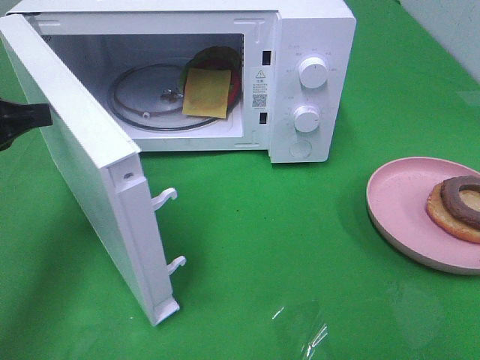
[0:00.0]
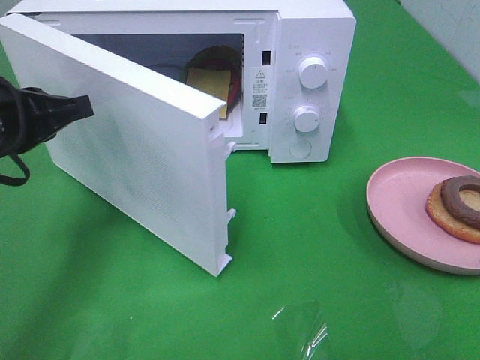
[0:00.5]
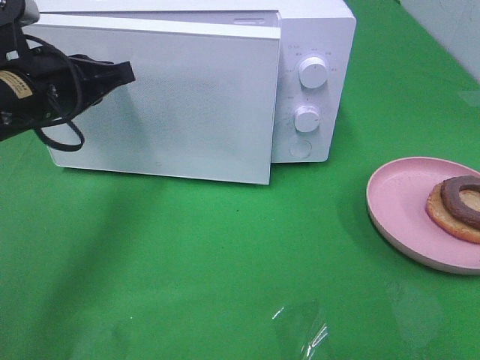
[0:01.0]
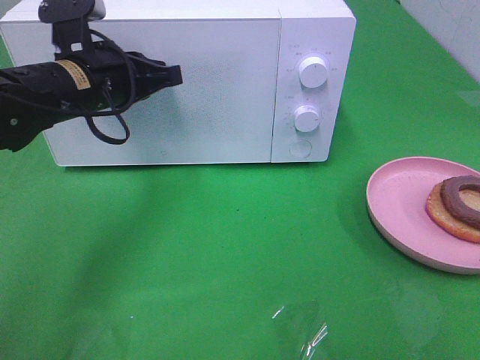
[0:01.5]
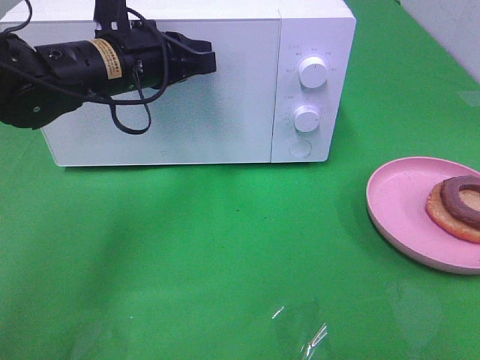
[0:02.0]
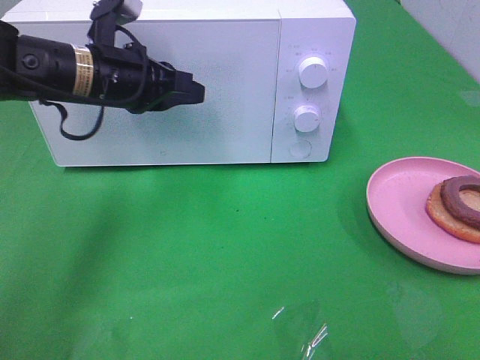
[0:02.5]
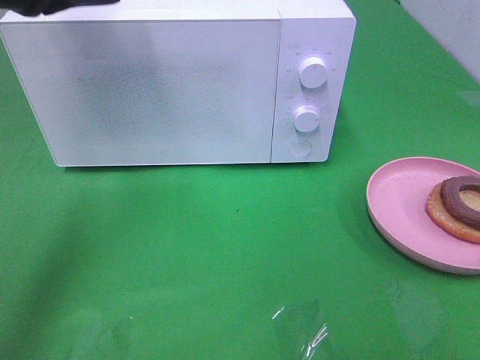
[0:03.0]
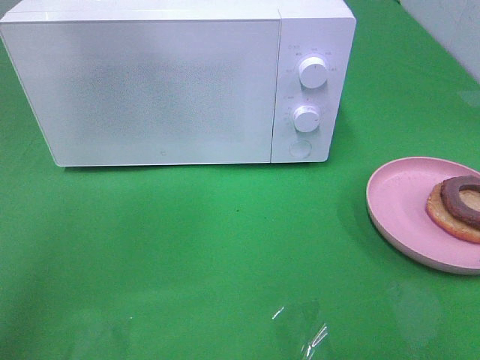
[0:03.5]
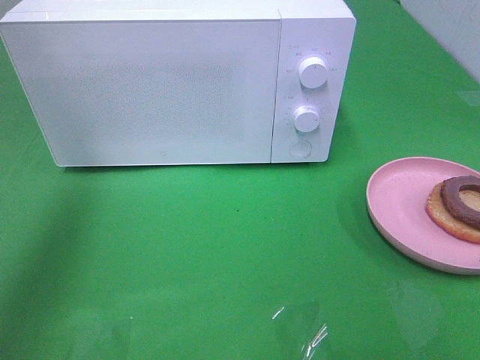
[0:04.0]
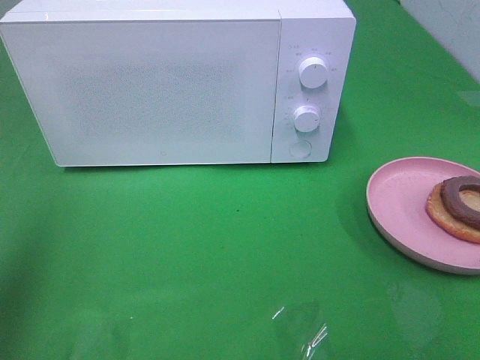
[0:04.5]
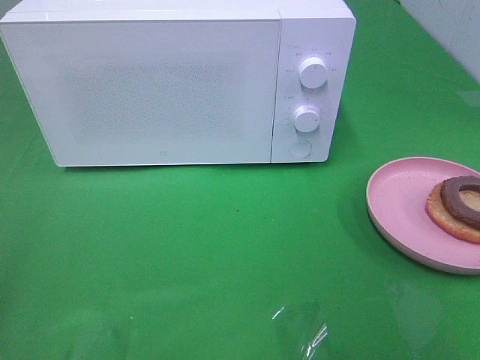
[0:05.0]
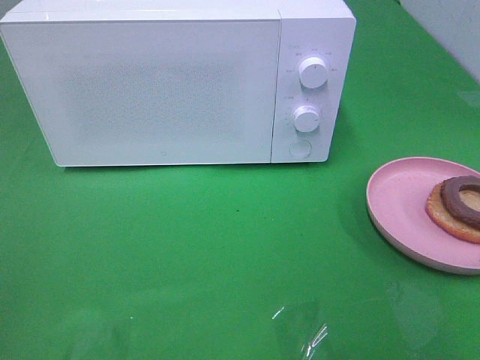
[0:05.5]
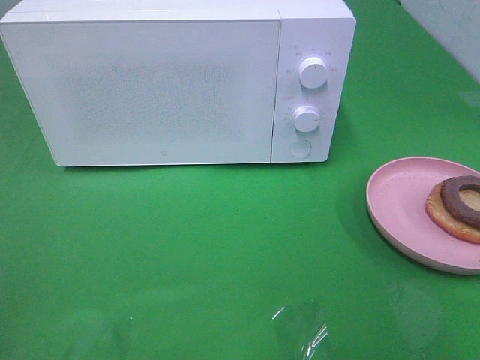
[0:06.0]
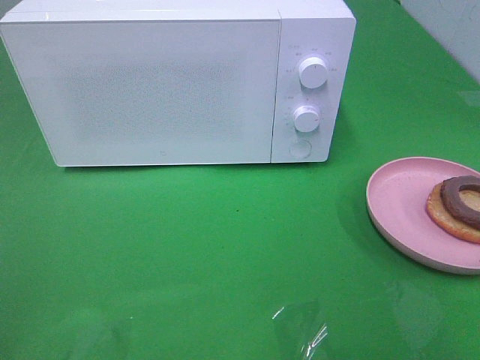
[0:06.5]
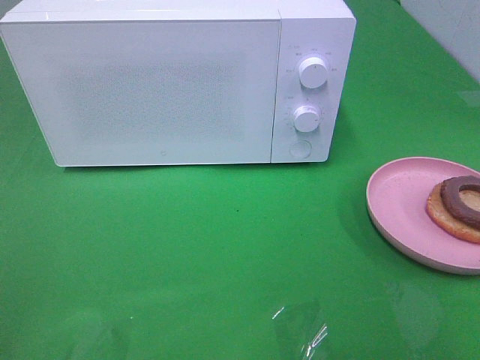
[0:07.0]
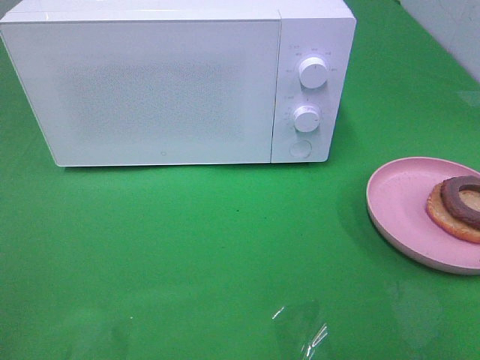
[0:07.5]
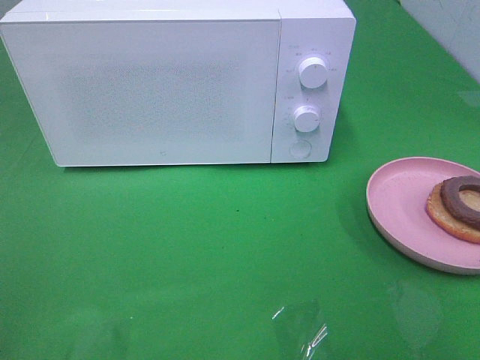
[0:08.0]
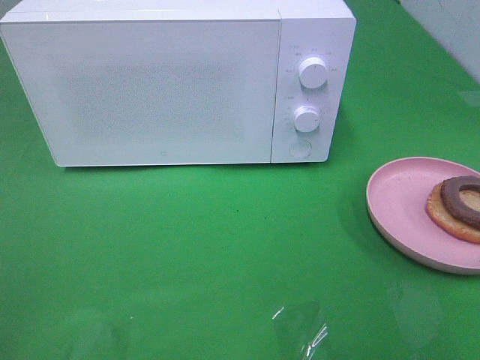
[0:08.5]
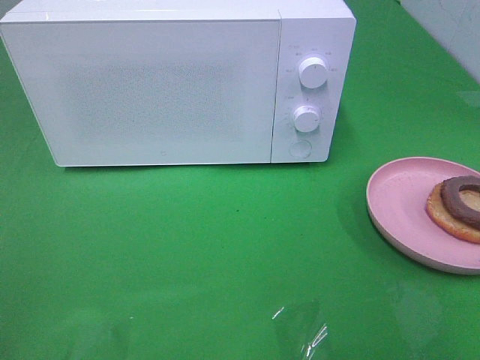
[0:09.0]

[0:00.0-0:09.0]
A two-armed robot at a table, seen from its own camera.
Task of the whole recording: Heat the burger.
Step, 0:00.0 to 0:02.5: Left hand: close the microwave door.
0:00.0 to 0:02.0: The left gripper moves to the right and forward, approximately 20 cm, and opens its fingers.
0:02.0 to 0:04.5: The left gripper moves backward, to the left and upward, roughly 35 cm.
0:04.5 to 0:07.0: The left gripper goes about 15 cm backward and downward, and closes up.
0:07.0 to 0:09.0: Neither gripper changes place.

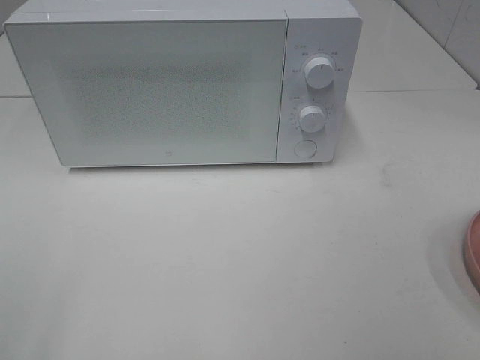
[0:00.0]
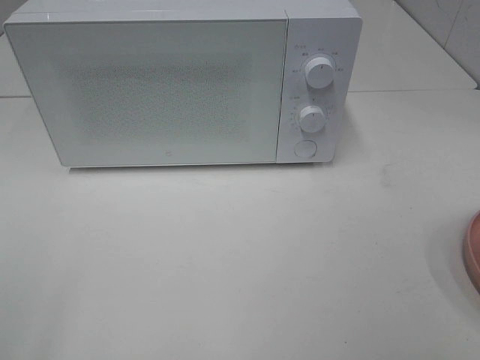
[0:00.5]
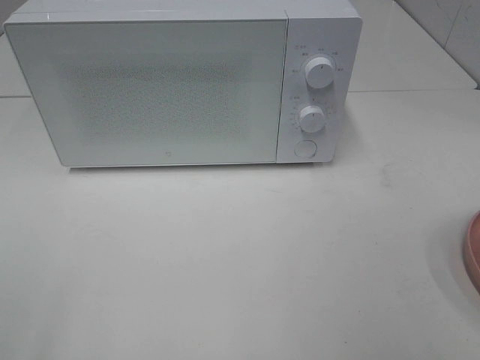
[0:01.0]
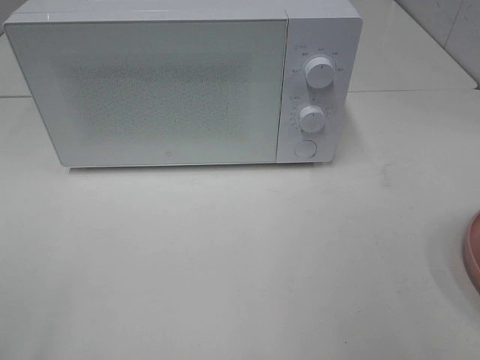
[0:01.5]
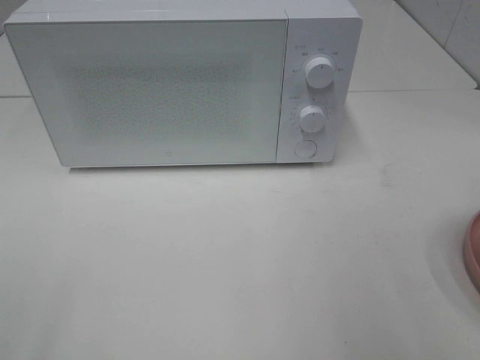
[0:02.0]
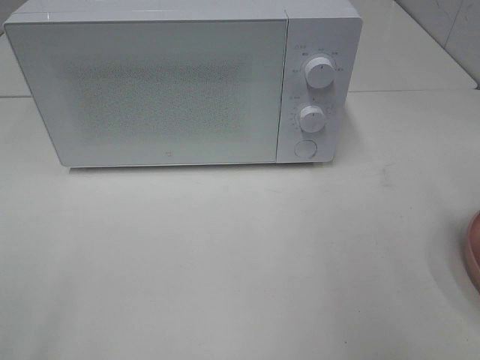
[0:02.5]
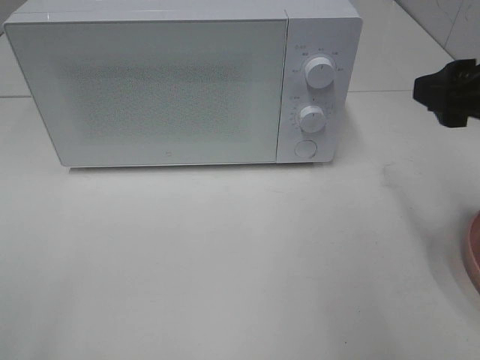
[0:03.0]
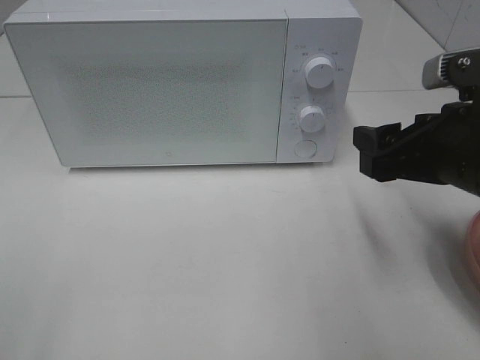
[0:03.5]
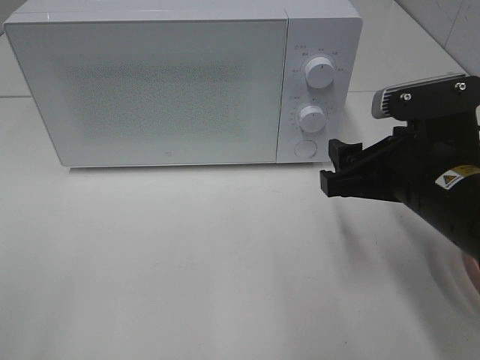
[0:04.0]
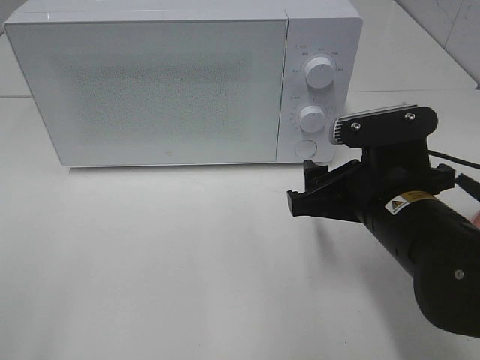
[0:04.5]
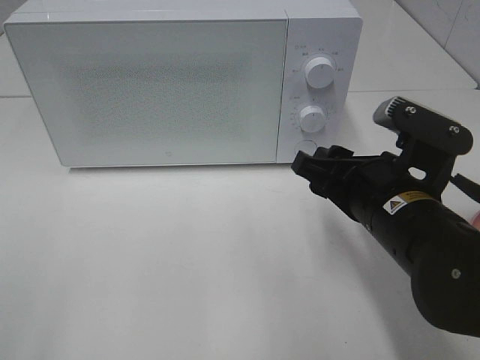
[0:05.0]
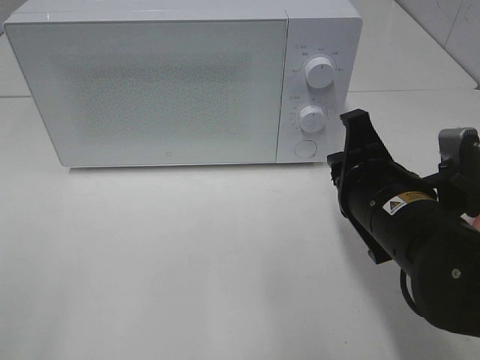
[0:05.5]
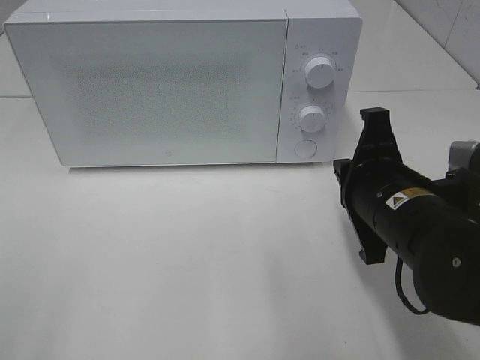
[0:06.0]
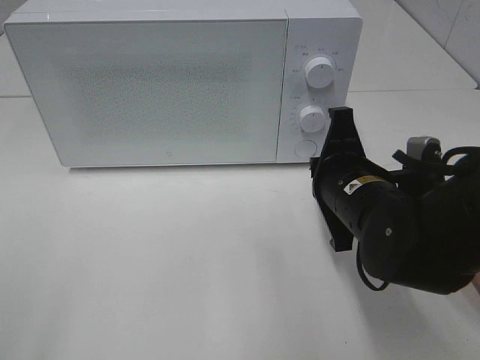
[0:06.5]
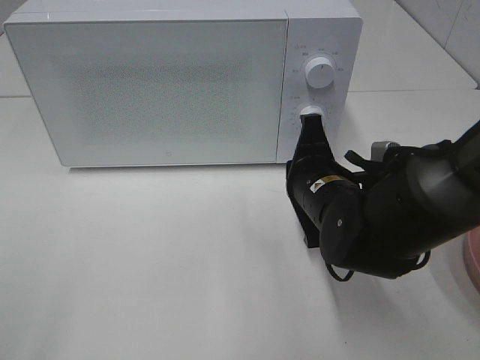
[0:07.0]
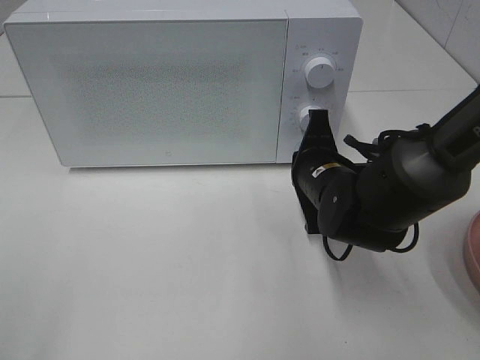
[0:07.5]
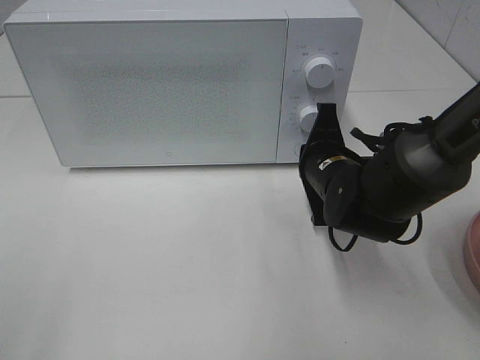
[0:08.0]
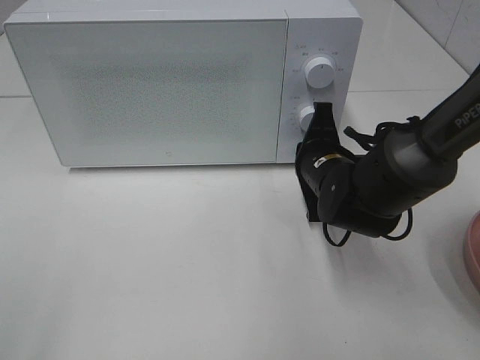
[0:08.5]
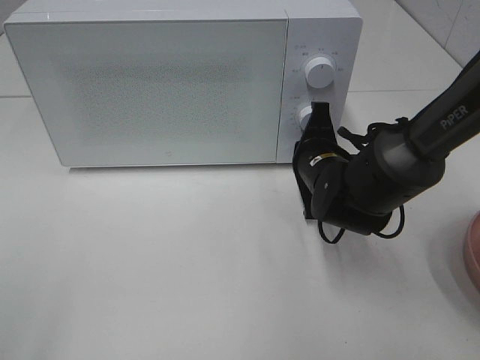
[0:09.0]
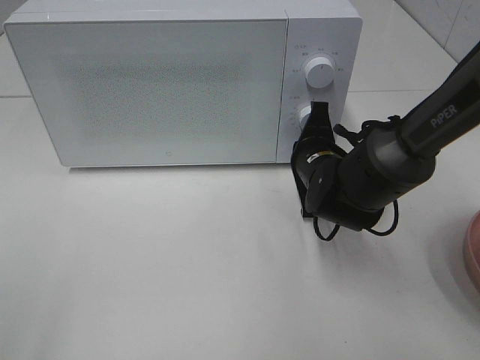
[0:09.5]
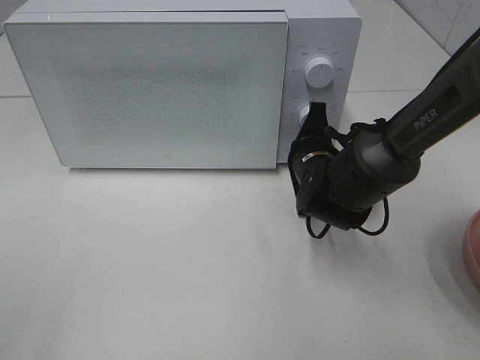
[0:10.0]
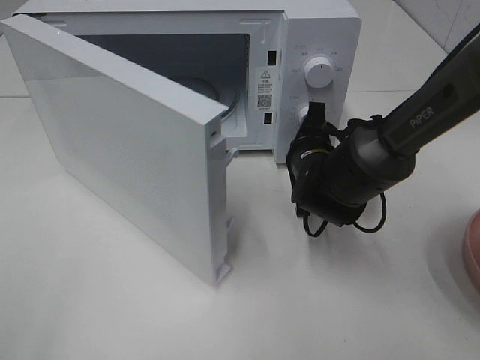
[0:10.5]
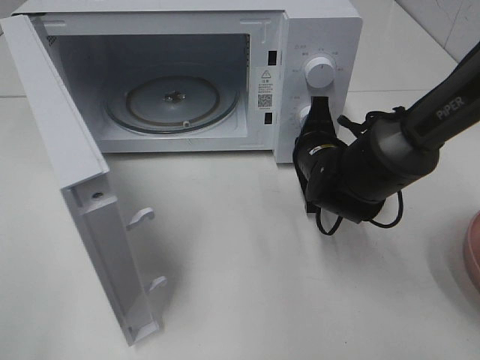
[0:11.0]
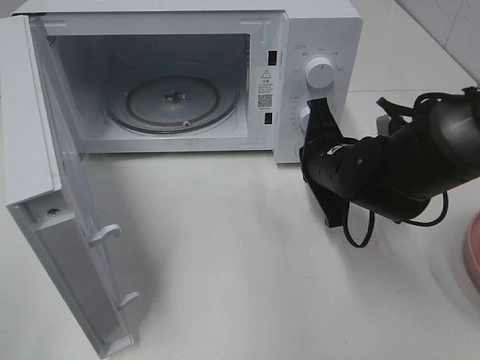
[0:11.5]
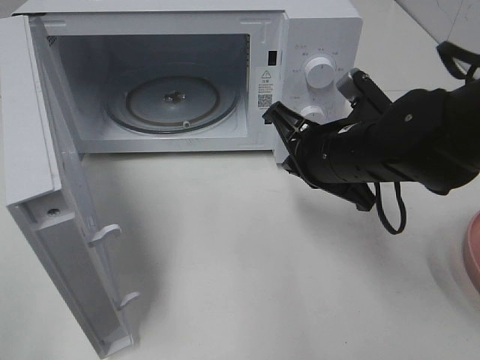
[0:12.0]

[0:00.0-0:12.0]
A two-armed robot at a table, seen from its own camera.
Task of the whole recording: Heat the burger.
Step, 0:00.0 to 0:11.0: Right hand: press the switch.
0:02.0 to 0:04.0: The right gripper travels downward, to the left and forward by approximately 20 cm.
0:04.0 to 0:06.0: The right gripper closes.
0:06.0 to 0:08.0: The right gripper travels forward and downward by about 10 cm.
0:08.0 to 0:10.0: There are only small adjustments of the grippers.
0:10.0 to 0:12.0: The right gripper goes approximately 10 cm upward and backward.

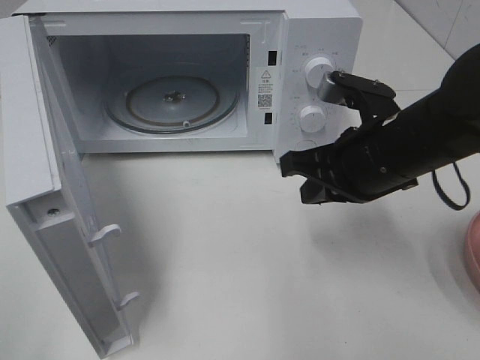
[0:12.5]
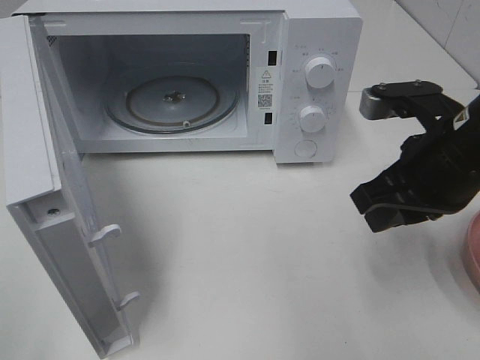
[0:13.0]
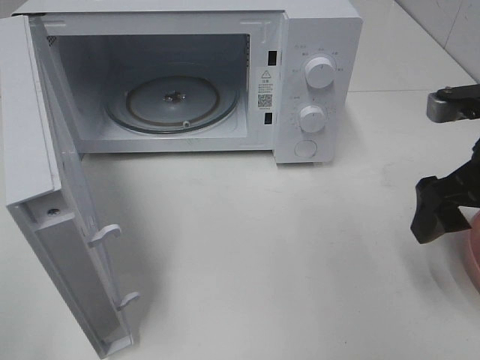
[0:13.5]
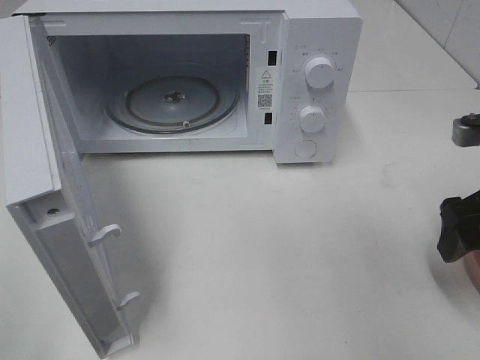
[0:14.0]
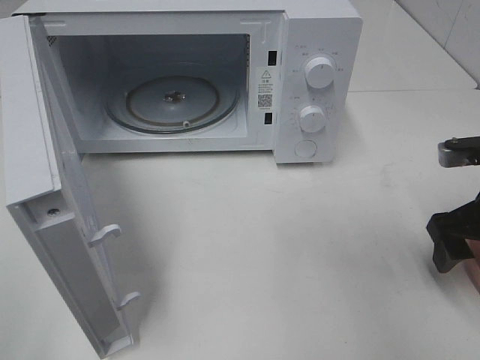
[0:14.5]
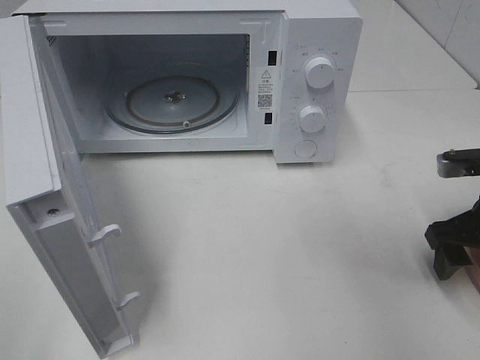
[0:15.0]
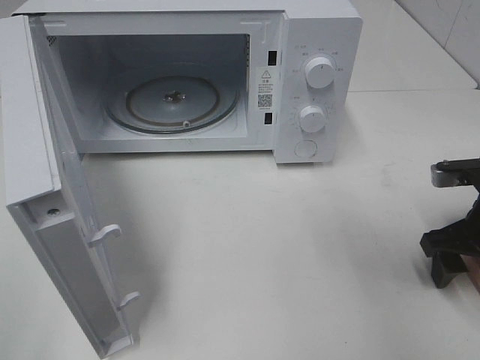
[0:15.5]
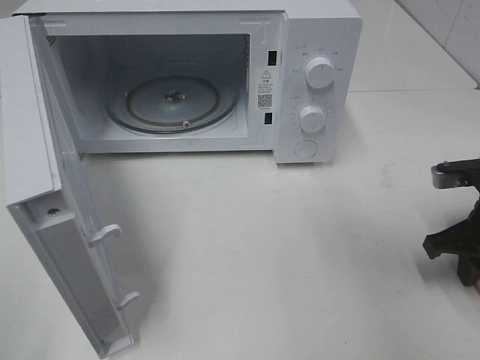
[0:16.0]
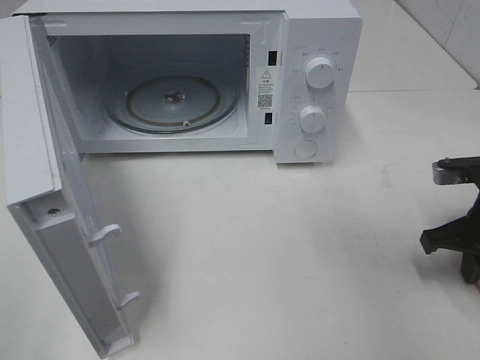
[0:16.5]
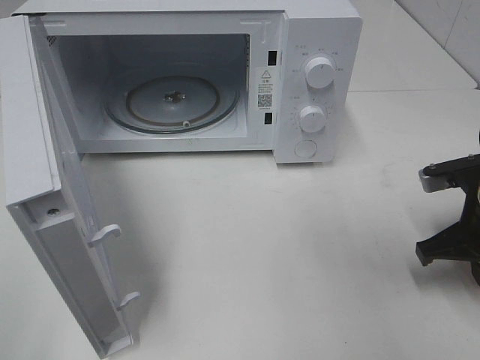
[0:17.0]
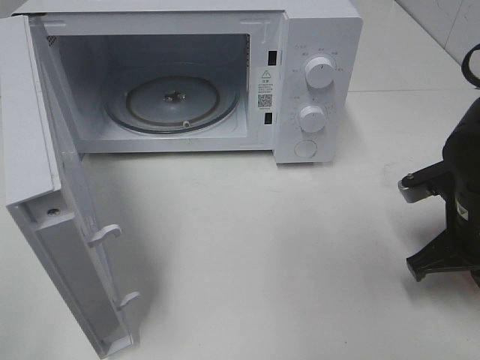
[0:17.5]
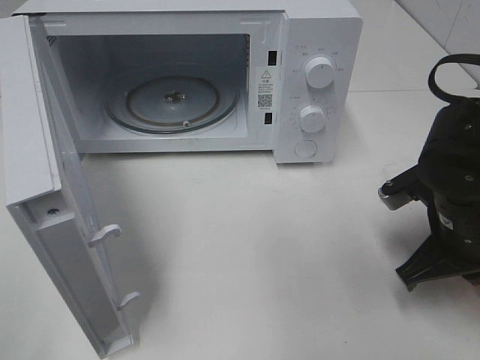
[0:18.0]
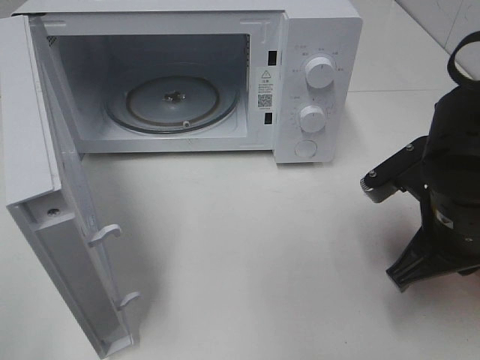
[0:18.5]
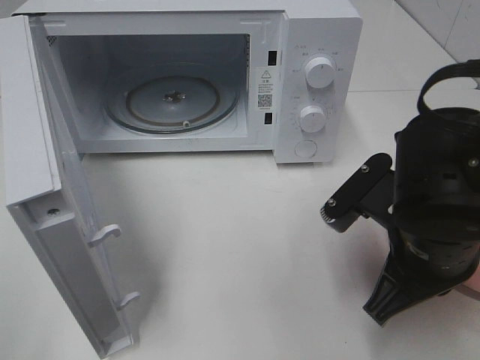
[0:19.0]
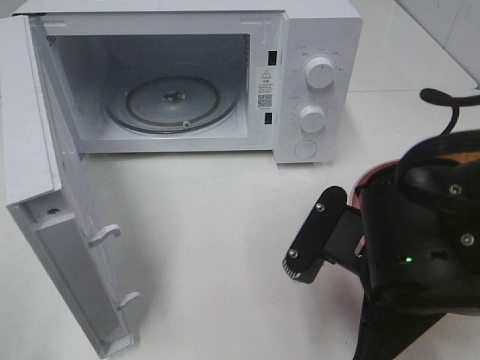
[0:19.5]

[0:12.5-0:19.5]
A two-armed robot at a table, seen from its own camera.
Task of the whole recording: Heat the burger.
Step, 0:12.5 to 0:16.0: Right hand: grab the plate with the hamburger.
0:12.5 to 0:14.5: The right gripper heads to the right, covering some 15 cm, and opens up.
0:14.5 to 0:16.0: The right gripper closes its fingers.
0:16.0 to 0:17.5: The right gripper shifts about 5 cm to the left.
0:17.5 to 0:19.5: The right gripper shifts about 15 cm to the left and backward.
